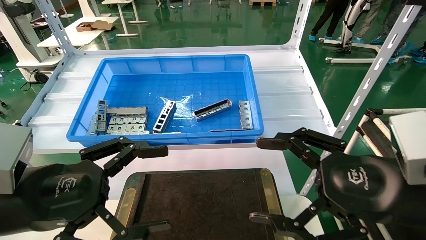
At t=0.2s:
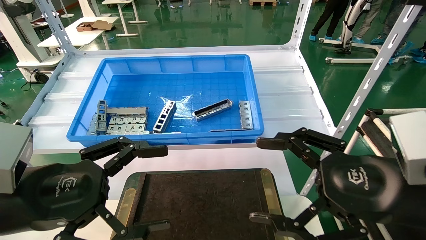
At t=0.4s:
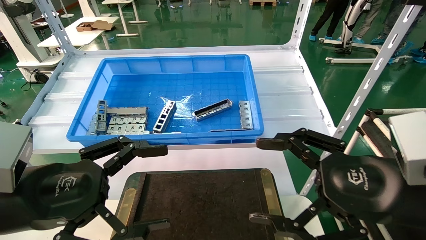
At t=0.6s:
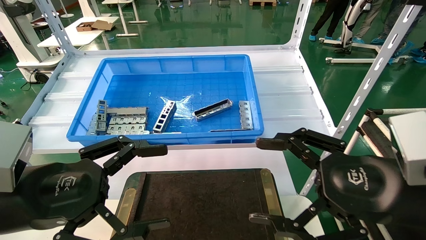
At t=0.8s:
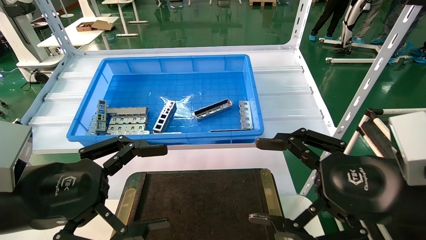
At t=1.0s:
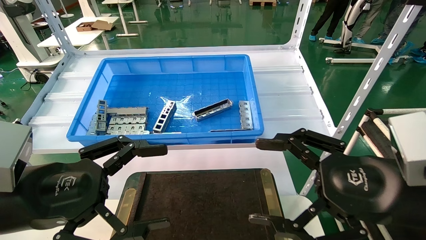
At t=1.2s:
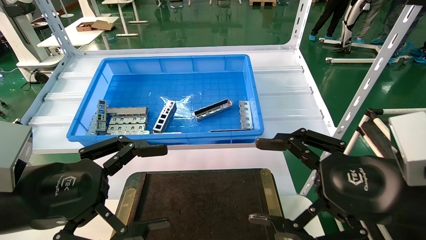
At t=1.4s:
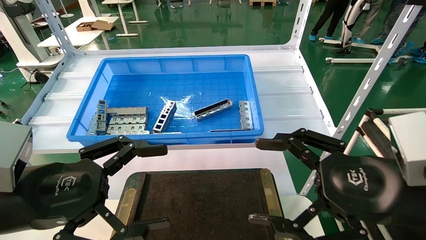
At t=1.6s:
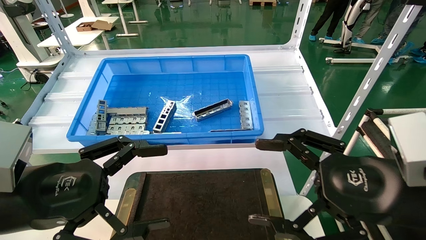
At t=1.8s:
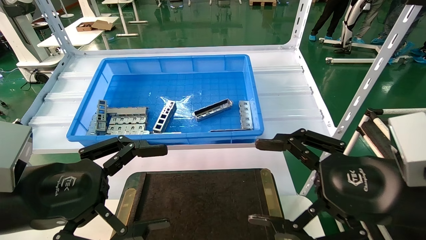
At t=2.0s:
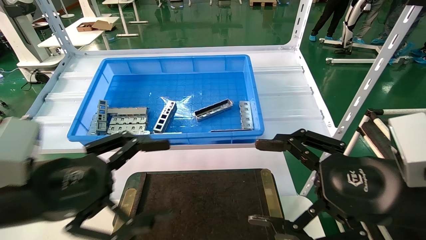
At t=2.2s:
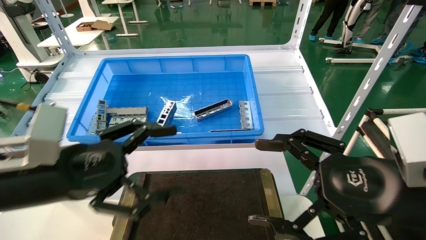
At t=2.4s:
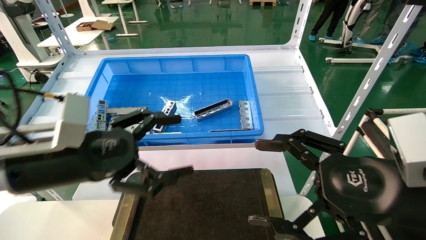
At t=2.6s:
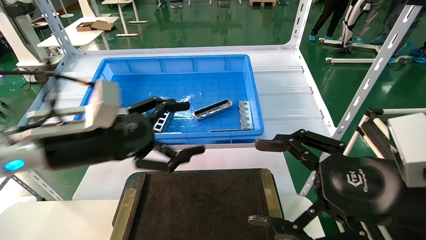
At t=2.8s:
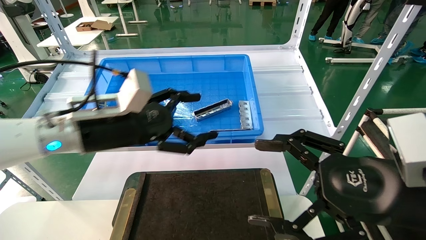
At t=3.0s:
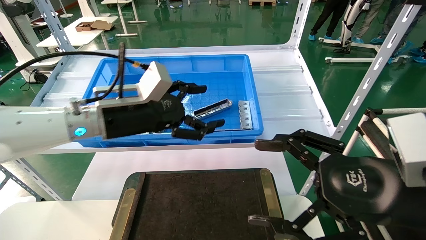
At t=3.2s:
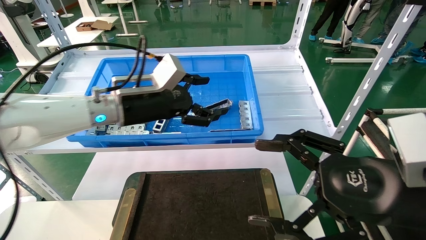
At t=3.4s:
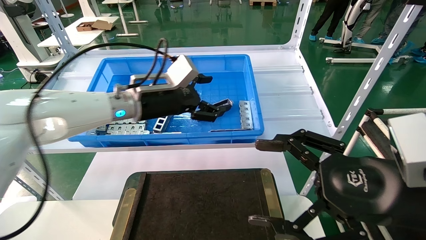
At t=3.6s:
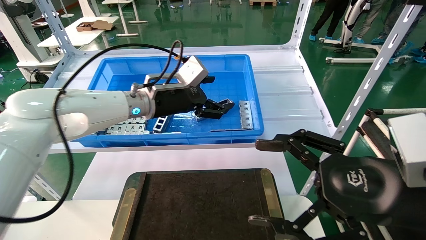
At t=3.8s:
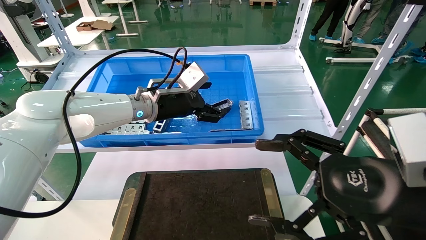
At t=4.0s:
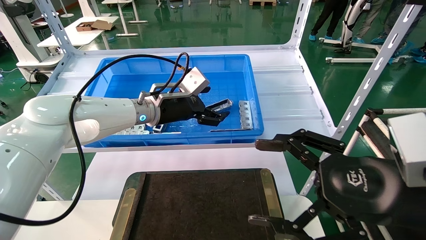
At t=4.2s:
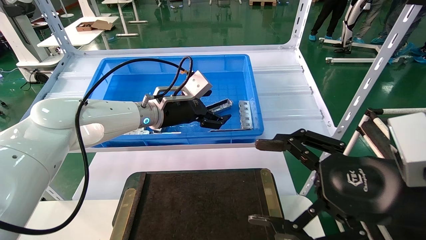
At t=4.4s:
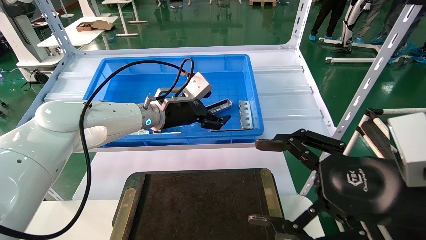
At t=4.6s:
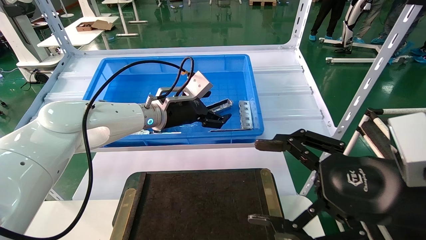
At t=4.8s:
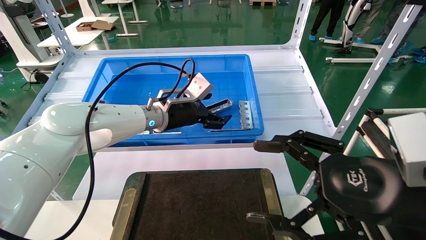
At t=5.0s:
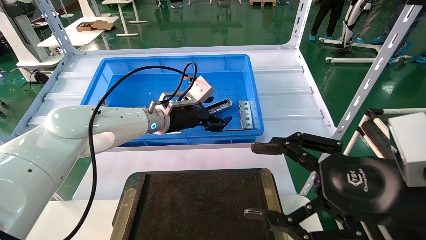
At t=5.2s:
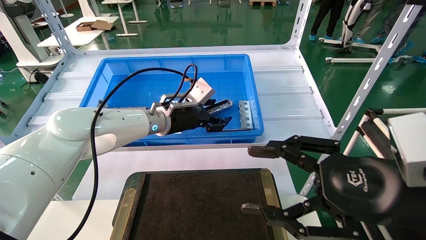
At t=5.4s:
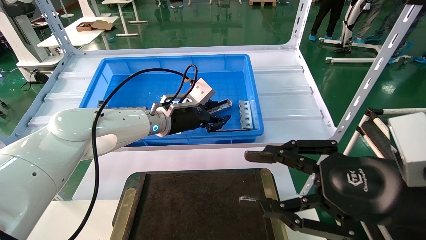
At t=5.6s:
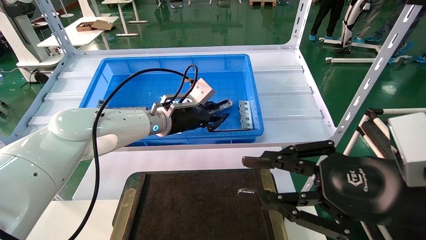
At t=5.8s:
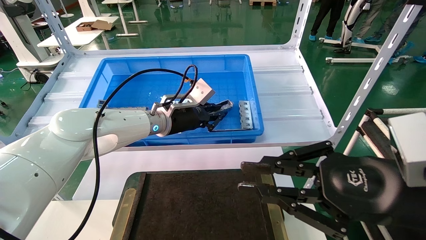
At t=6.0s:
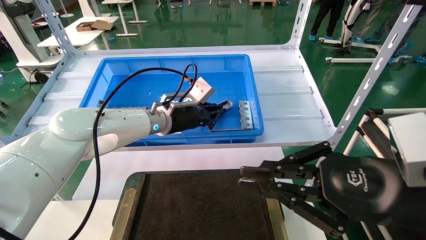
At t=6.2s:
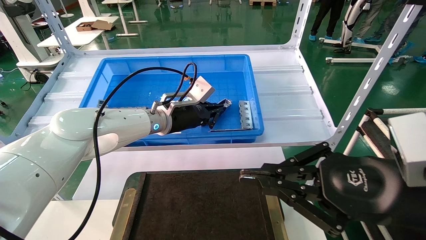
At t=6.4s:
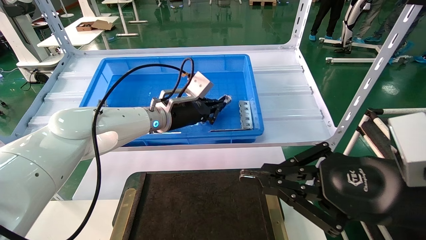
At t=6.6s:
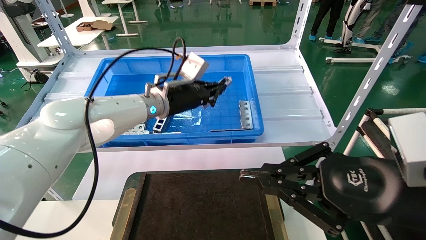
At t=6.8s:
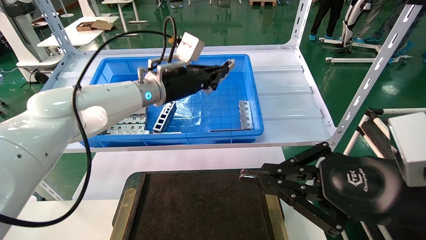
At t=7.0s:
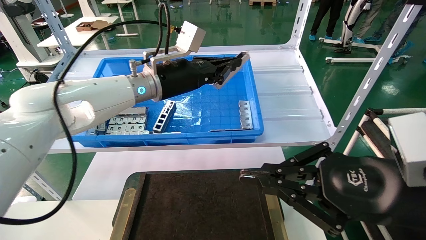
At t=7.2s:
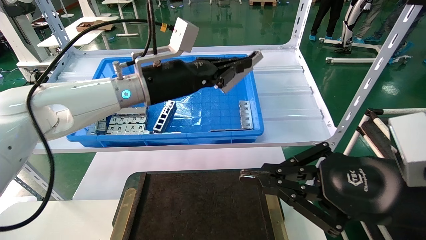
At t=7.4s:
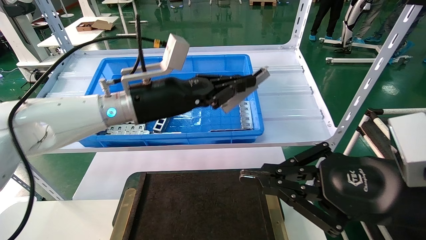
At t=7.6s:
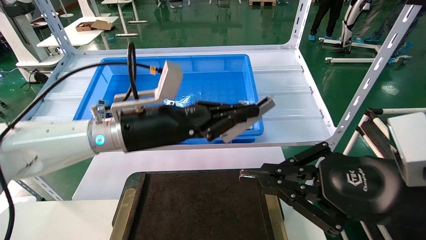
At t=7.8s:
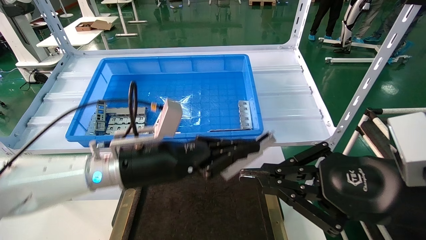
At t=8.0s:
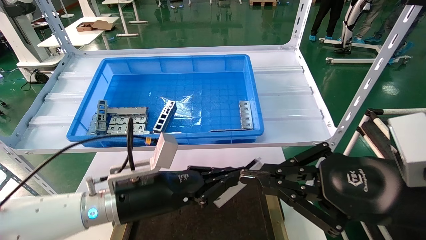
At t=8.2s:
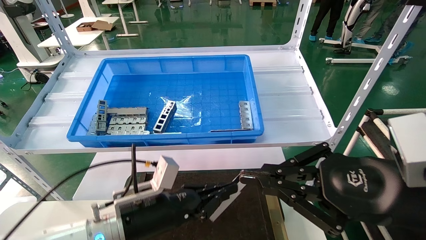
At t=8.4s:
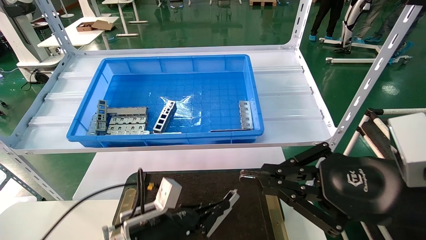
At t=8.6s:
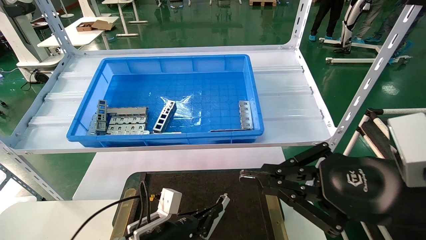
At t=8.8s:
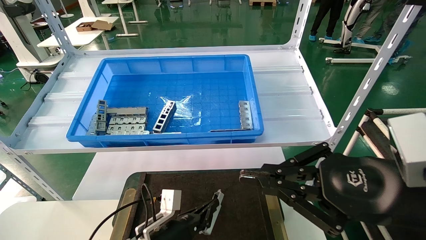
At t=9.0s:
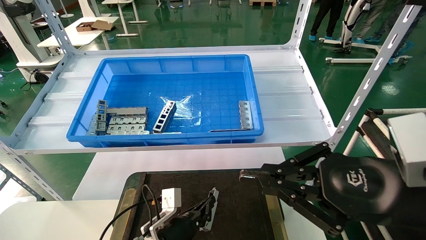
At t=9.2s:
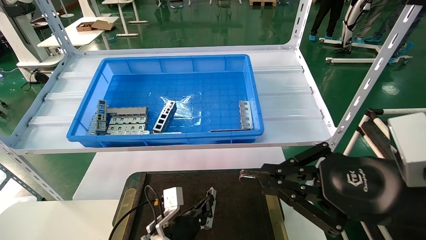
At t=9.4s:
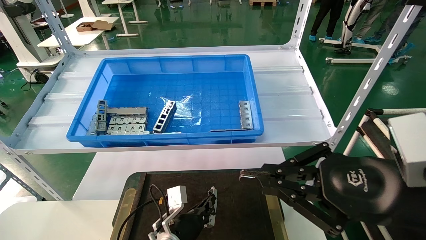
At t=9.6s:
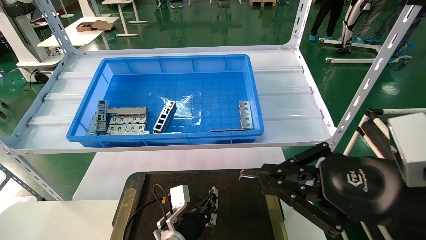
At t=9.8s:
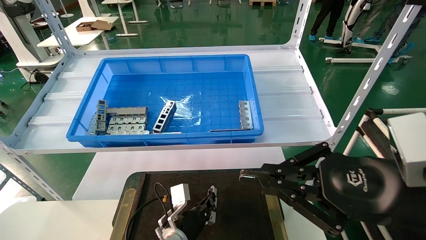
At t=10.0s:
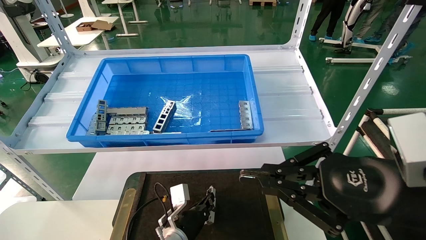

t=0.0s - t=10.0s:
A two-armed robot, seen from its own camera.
Task of the whole recording: Grasp the part with one hand and place it on the black container.
Step, t=2.2s - t=6.2s: Pick up the front USB bracket from the feeding area.
t=0.0s - t=1.4s: Neither gripper changes place.
t=1.4s - t=2.8s: The left gripper goes some 15 cm forward and to the right.
t=2.8s - t=4.2s: The left gripper shifts approximately 15 cm forward and to the right.
t=4.2s - t=5.8s: The right gripper closes its fingers; the left gripper closes up.
t=5.8s - t=7.2s: The left gripper moves upward and backward, about 10 cm.
t=7.2s - t=8.6s: The left gripper shifts approximately 30 cm downward.
t=8.6s - t=10.0s: The left gripper heads forward, downward and to the right, covering some 10 cm.

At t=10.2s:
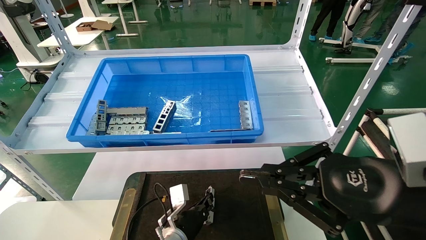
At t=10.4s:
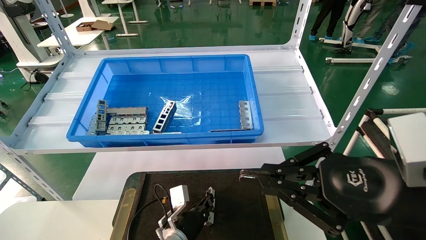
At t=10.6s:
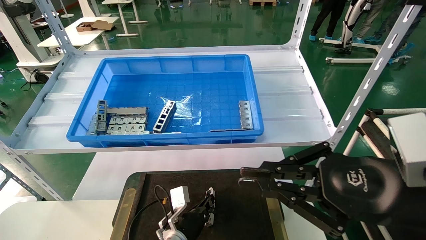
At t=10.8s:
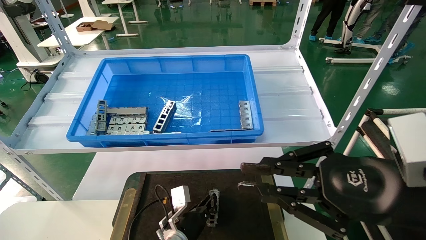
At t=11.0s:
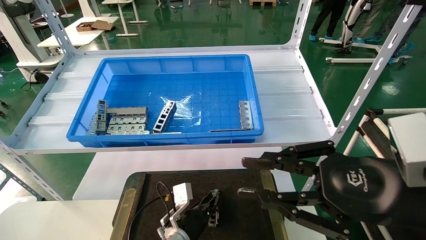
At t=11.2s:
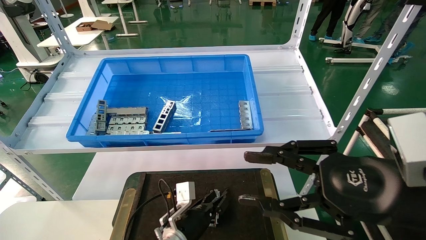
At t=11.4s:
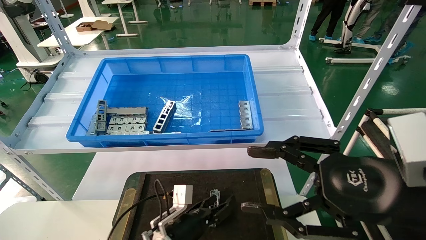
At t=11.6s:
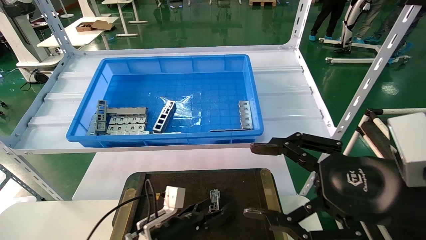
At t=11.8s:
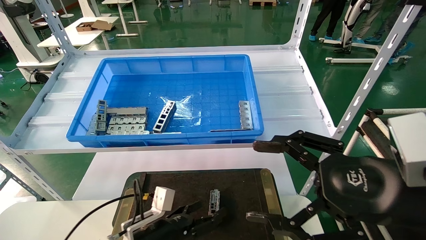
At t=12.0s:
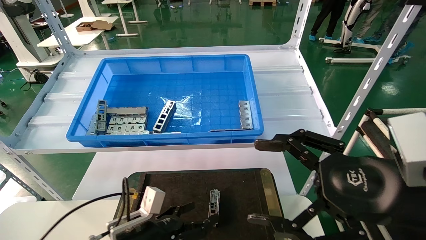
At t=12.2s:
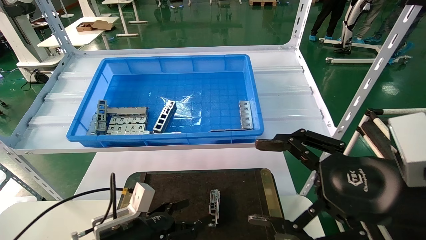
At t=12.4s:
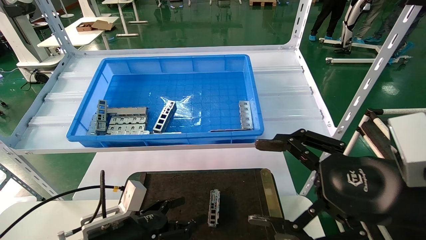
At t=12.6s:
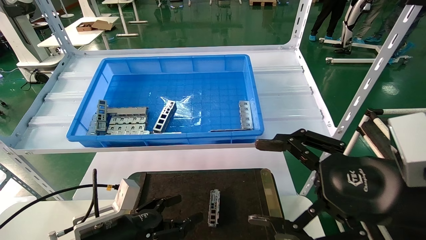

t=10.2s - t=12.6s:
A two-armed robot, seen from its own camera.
Task of the whole recording: Grasp the part with one hand and place it on the black container.
t=10.2s - t=11.4s: The right gripper opens up, while the left gripper moves roughly 5 cm, and opens up.
t=11.4s - t=12.6s: The right gripper opens. The left gripper is displaced to the left, upward and backward by some 15 cm, and opens up.
